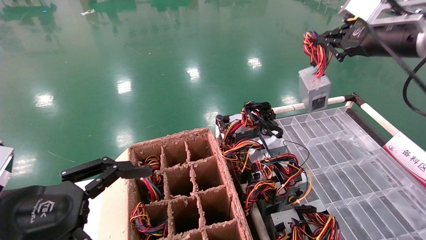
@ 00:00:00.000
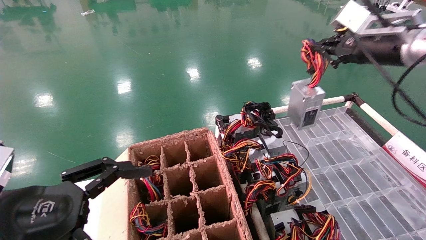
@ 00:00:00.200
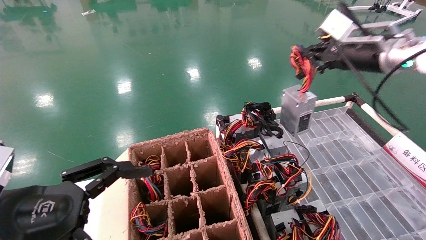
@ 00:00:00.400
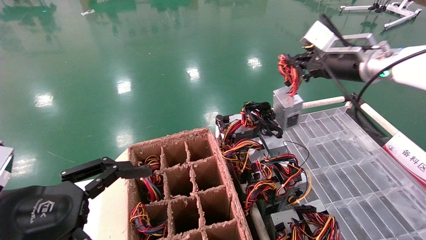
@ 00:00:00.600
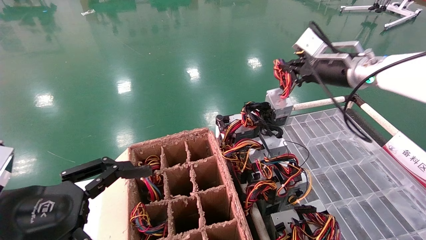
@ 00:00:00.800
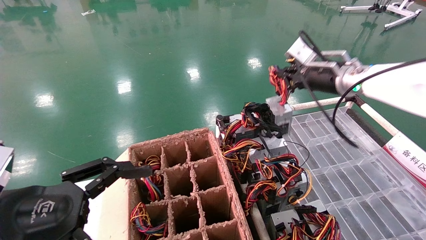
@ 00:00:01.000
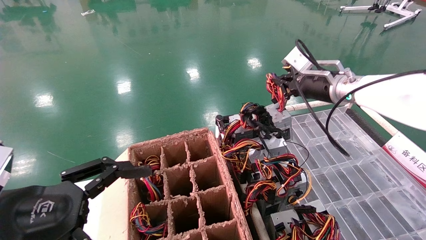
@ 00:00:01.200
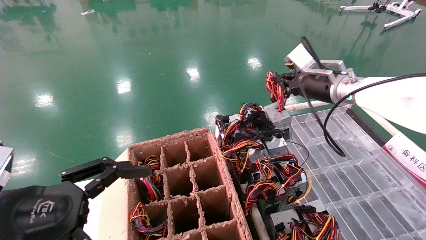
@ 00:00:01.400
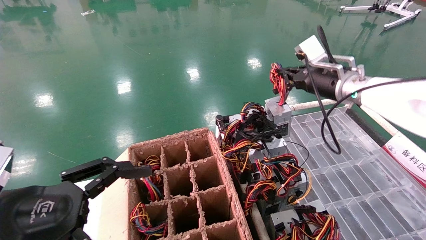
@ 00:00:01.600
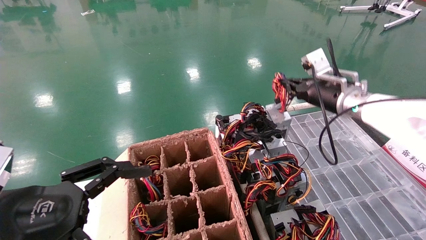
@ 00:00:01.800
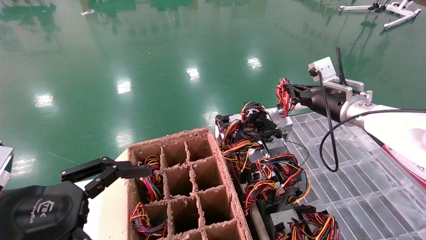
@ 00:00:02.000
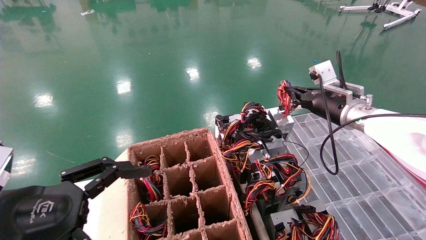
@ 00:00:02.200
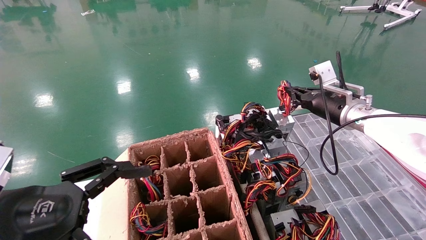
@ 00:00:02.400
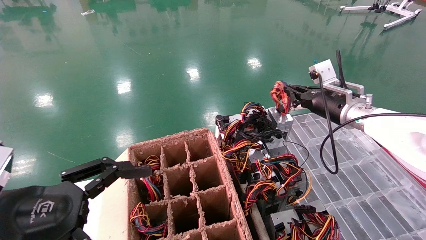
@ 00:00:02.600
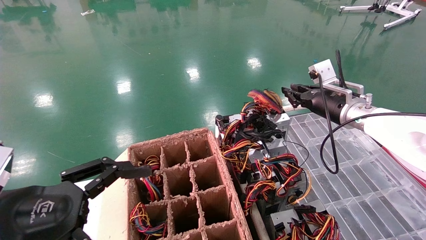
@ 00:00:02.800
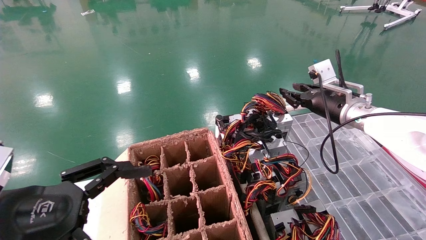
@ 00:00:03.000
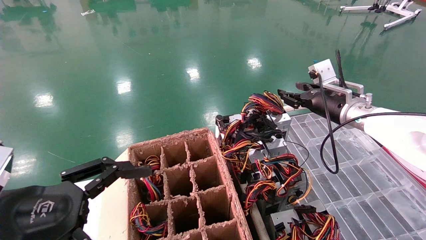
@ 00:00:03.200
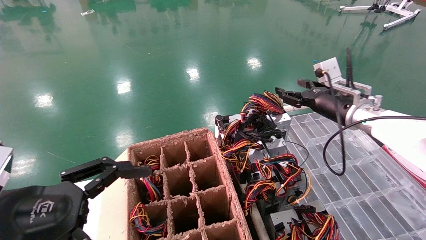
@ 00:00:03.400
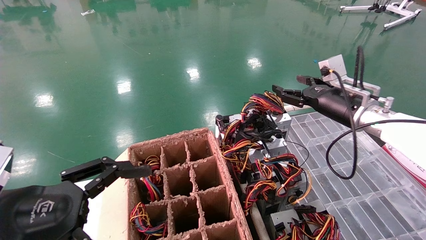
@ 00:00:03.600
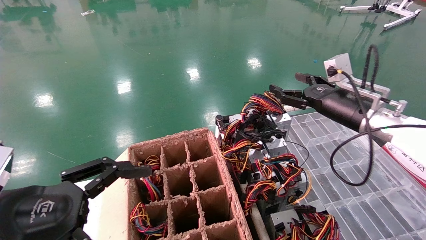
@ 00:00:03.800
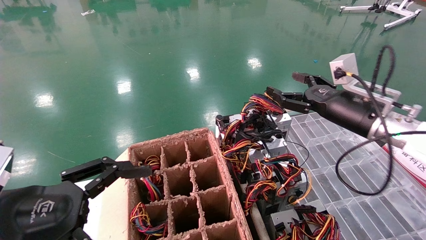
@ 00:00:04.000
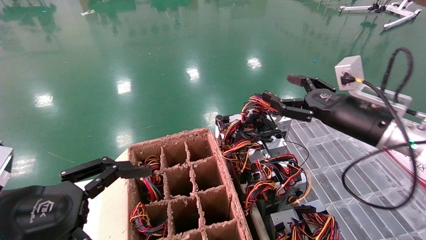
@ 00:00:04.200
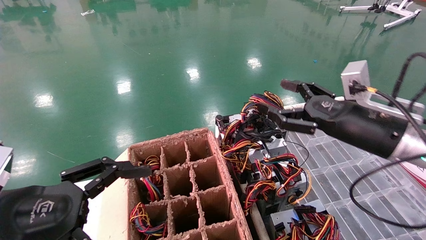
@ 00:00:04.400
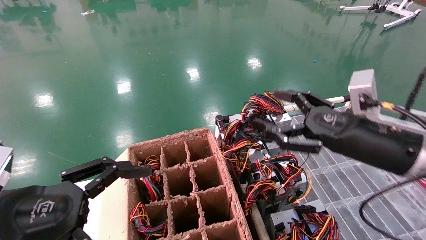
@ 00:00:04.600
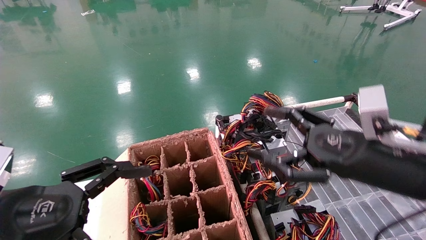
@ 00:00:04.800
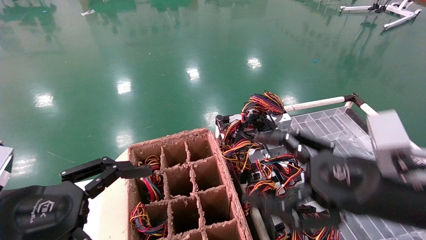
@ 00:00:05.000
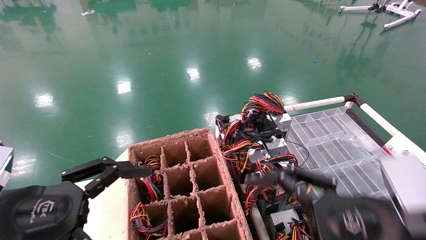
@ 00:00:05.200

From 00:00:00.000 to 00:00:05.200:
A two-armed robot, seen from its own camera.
Step, from 00:00:00.000 to 00:00:02.600: Place the power supply on the operating table.
From 00:00:00.000 to 00:00:01.800: The right gripper moves downward and forward, roughly 15 cm.
From 00:00:01.800 to 00:00:03.400: The right gripper opens its fingers.
From 00:00:03.400 to 00:00:05.200: The right gripper moves backward, some 25 cm, and opens.
